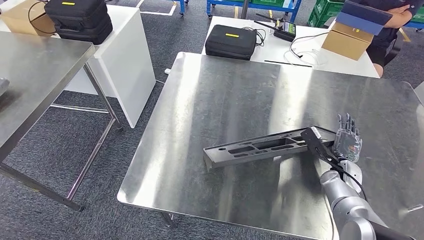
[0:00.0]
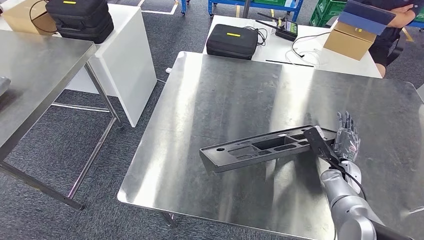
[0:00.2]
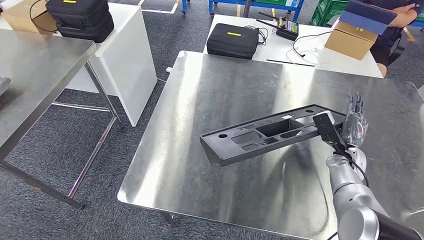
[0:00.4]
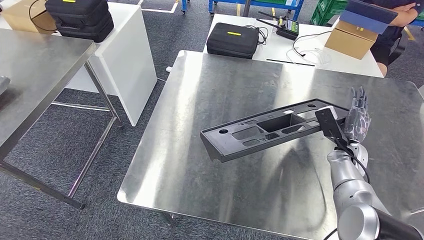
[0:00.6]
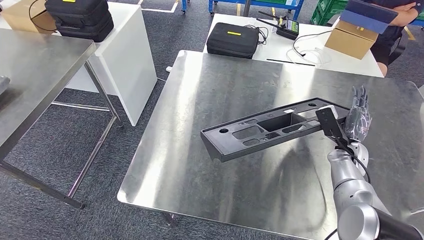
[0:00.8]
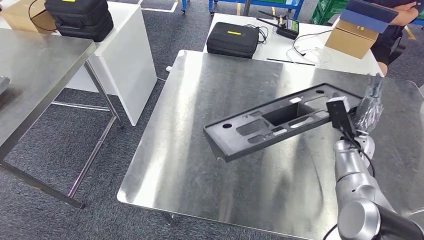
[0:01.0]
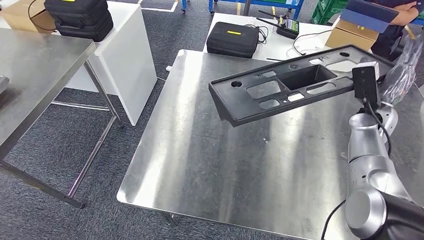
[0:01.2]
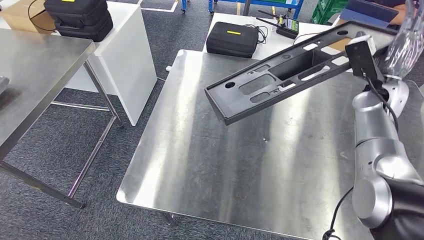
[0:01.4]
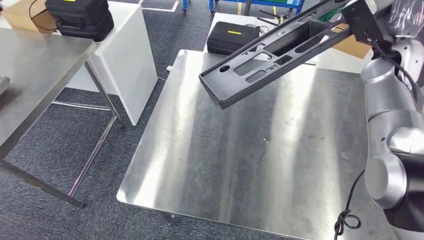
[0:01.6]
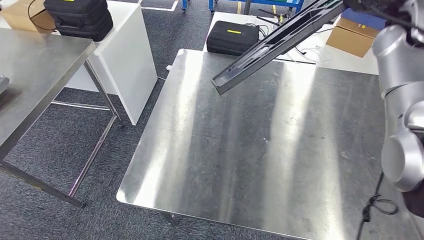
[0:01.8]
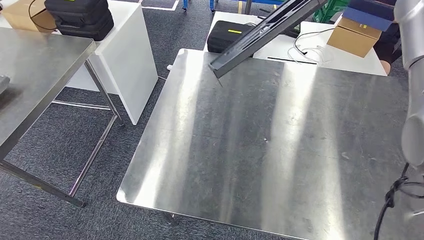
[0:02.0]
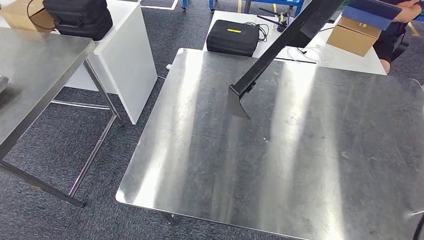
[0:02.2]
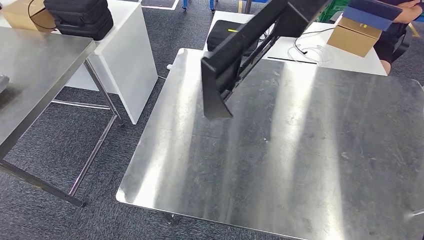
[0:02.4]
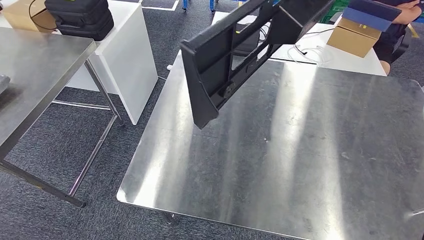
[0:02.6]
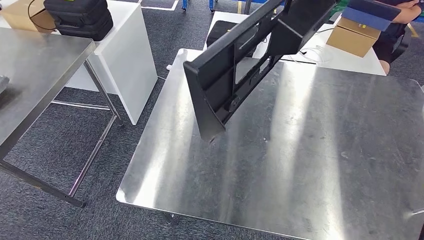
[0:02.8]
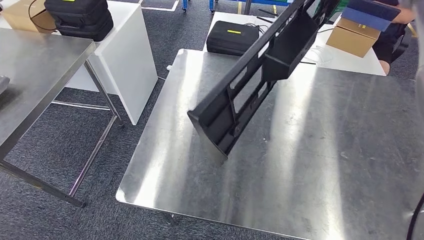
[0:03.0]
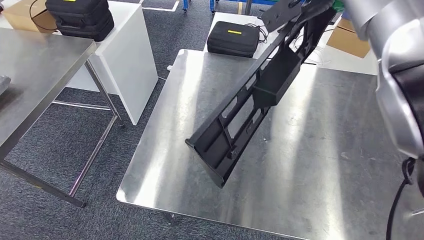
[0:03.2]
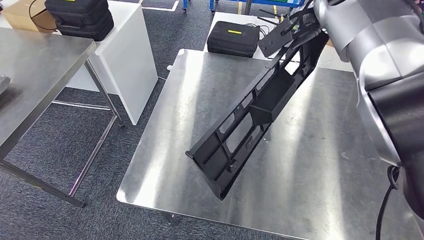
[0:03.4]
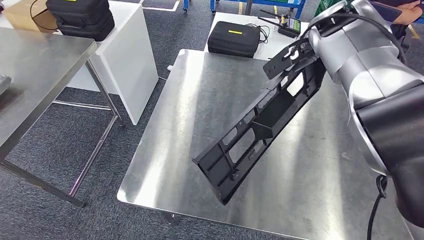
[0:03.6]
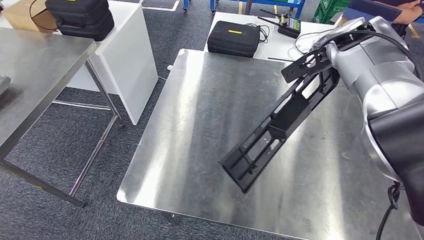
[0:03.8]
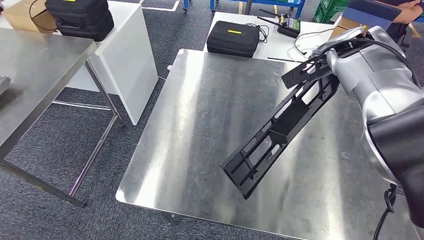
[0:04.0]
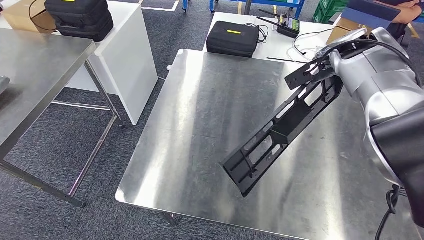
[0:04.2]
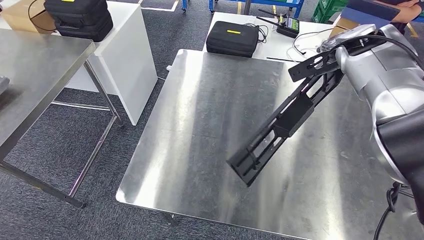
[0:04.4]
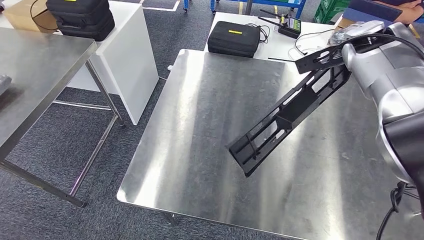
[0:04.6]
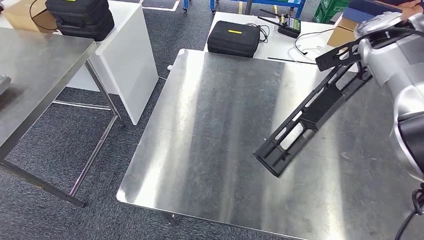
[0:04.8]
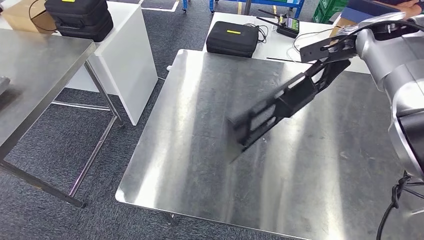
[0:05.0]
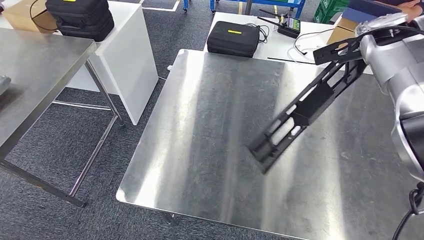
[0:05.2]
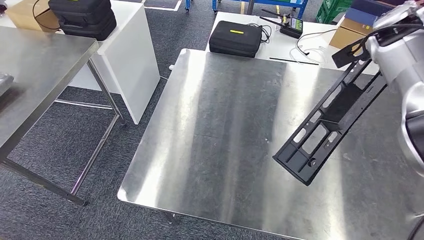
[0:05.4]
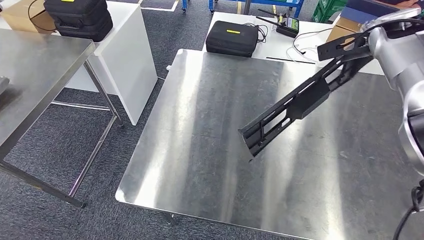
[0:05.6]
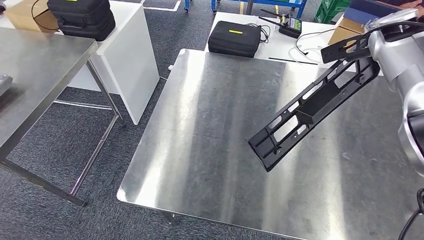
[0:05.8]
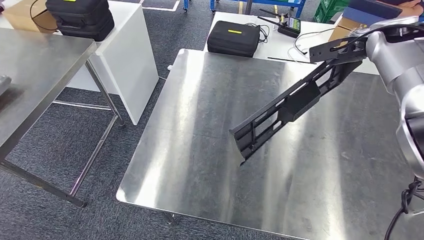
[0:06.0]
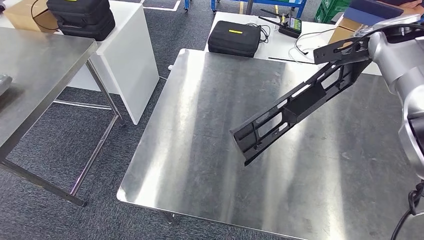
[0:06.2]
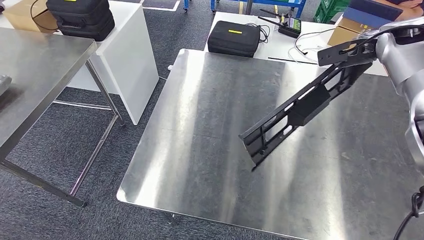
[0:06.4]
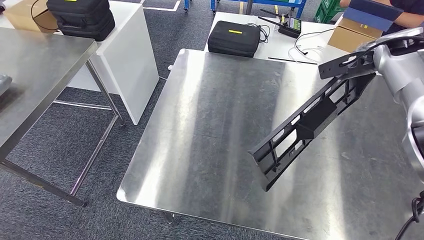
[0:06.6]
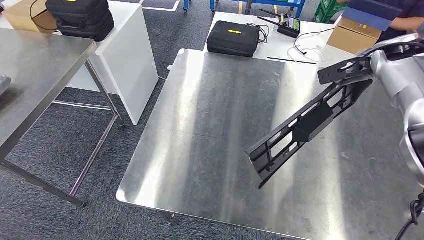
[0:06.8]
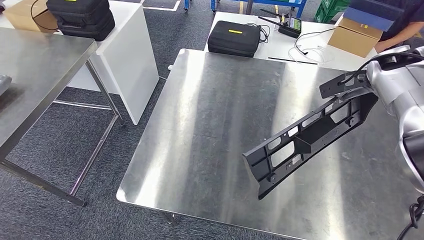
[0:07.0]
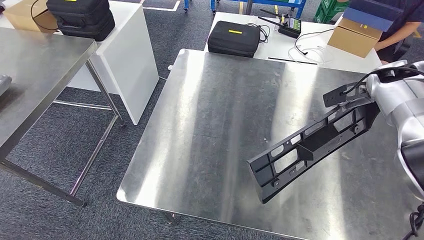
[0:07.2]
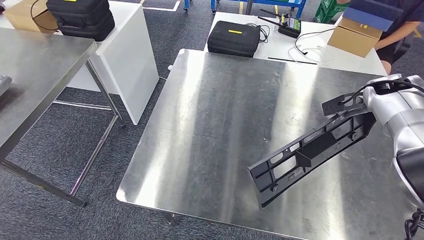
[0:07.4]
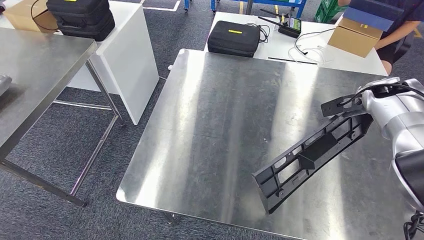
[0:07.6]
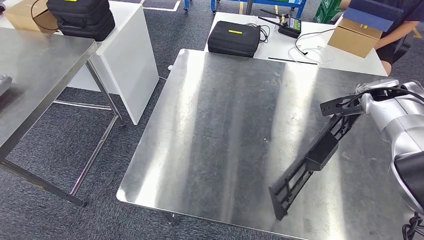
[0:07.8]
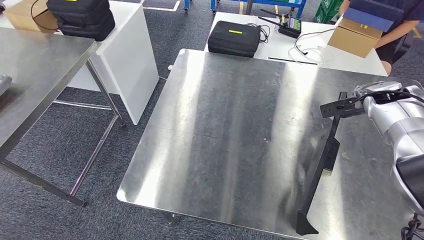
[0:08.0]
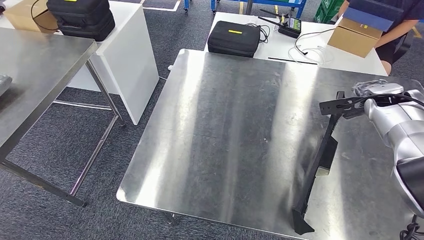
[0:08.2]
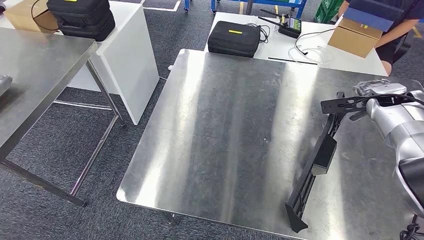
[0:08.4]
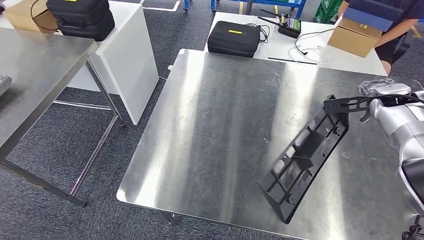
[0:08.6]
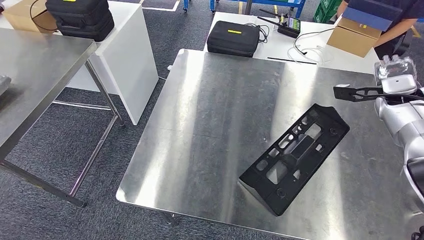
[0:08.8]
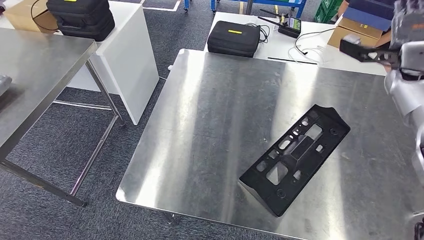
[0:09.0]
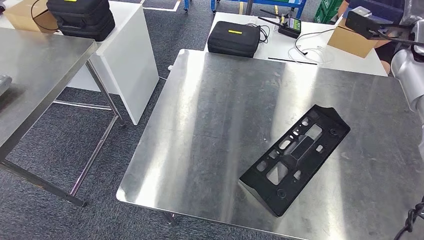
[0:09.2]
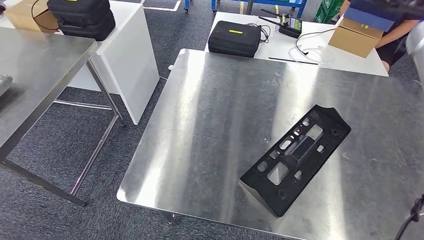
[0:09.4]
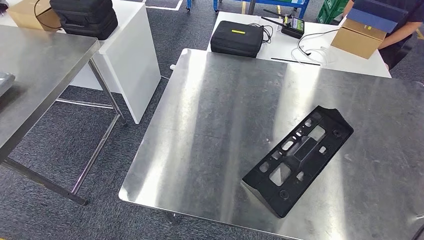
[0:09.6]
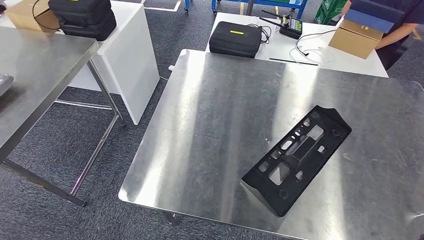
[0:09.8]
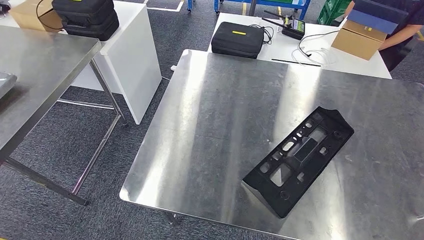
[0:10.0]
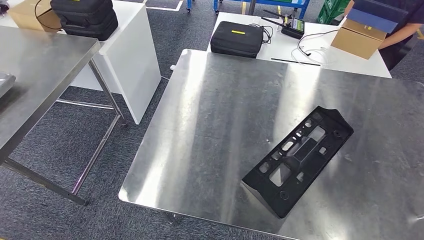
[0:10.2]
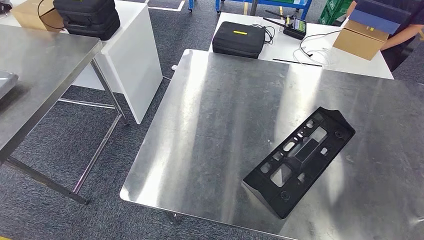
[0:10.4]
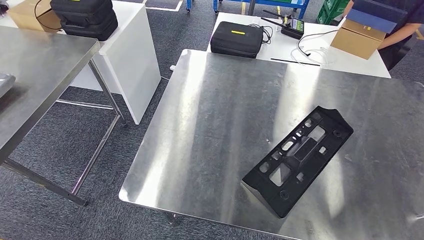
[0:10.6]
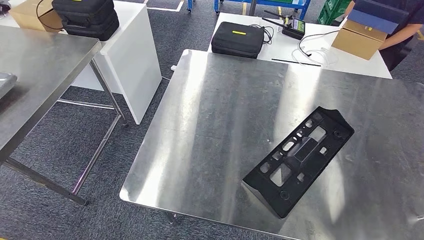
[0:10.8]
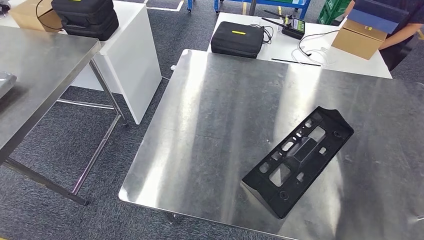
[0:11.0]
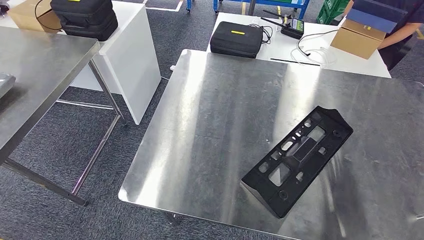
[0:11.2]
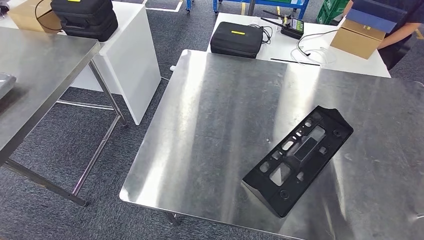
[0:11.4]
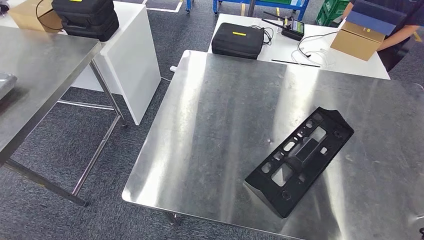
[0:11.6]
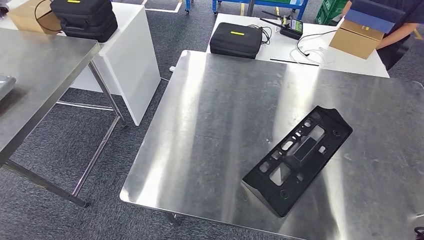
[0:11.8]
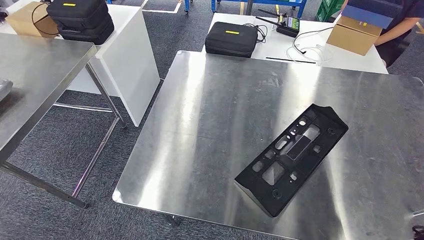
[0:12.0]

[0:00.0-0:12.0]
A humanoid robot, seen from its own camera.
Step, 0:00.0 to 0:09.6: Insert the large material into the corresponding slot on the workbench.
0:04.4 to 0:06.0: The right hand is displaced to the right by about 5 cm.
0:06.0 to 0:07.6: The right hand is displaced downward and to the right by about 15 cm.
0:07.6 to 0:09.0: The right hand goes approximately 5 cm upward.

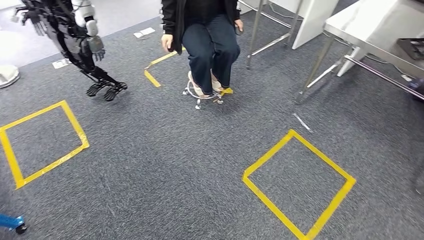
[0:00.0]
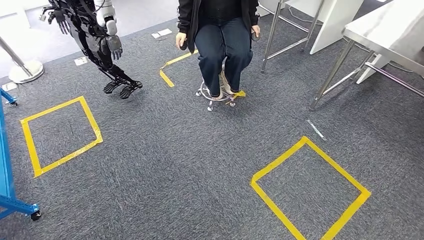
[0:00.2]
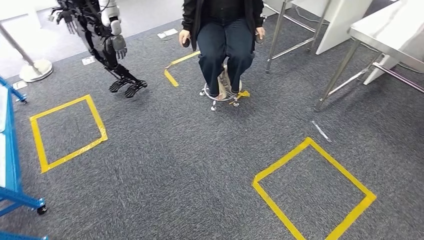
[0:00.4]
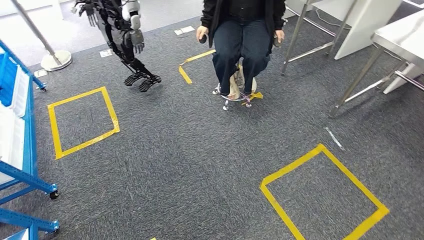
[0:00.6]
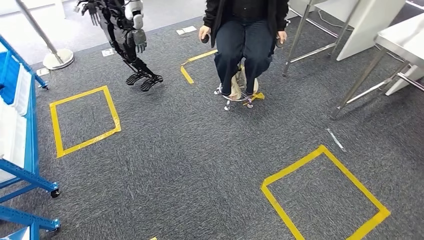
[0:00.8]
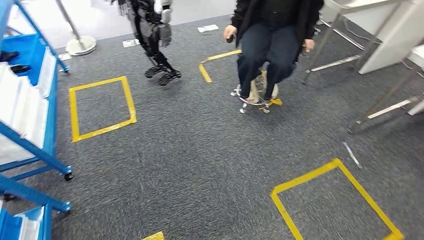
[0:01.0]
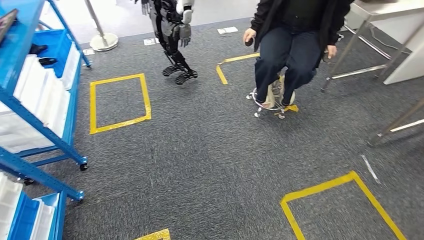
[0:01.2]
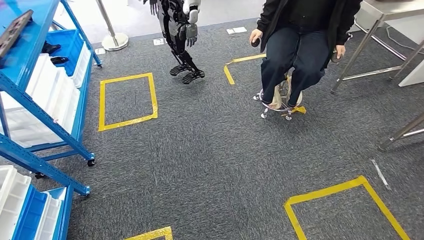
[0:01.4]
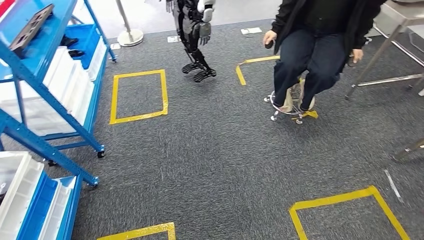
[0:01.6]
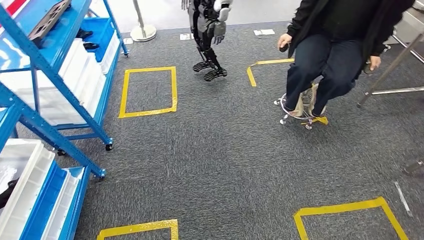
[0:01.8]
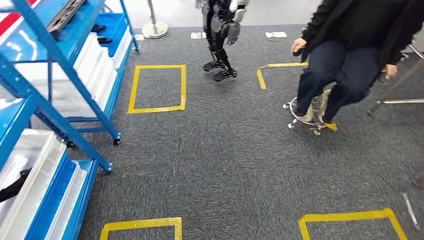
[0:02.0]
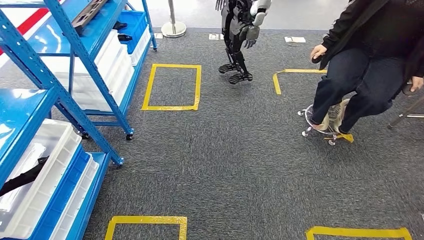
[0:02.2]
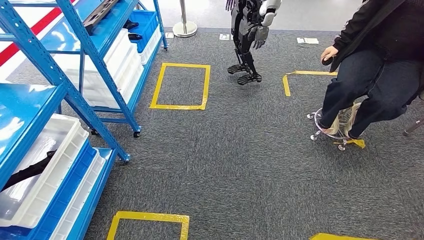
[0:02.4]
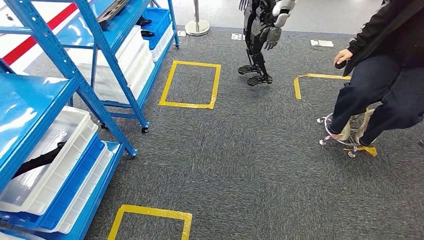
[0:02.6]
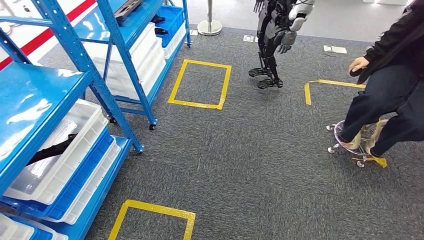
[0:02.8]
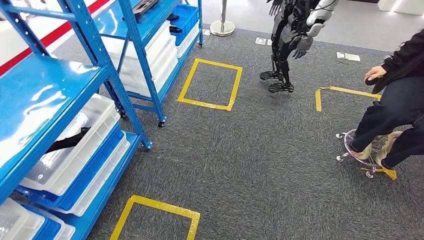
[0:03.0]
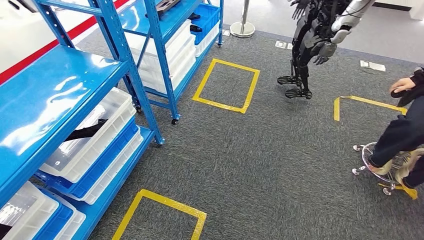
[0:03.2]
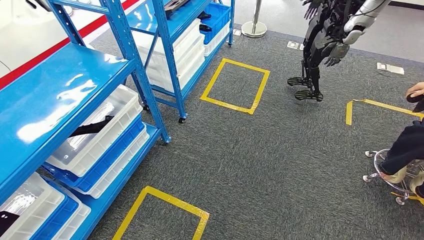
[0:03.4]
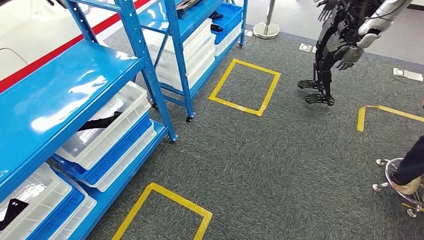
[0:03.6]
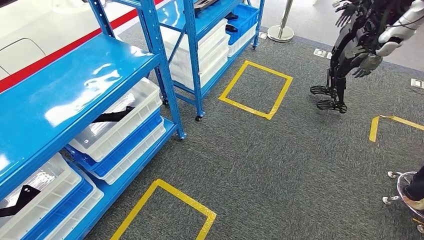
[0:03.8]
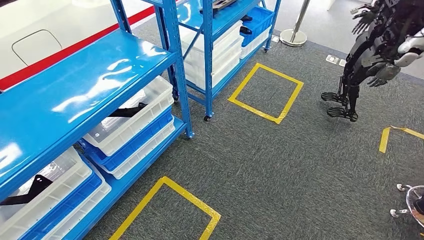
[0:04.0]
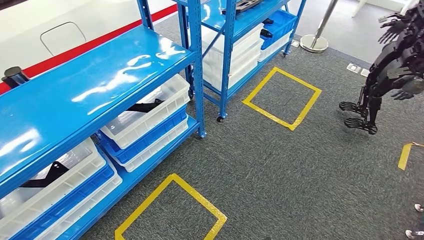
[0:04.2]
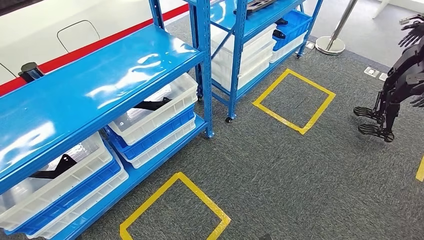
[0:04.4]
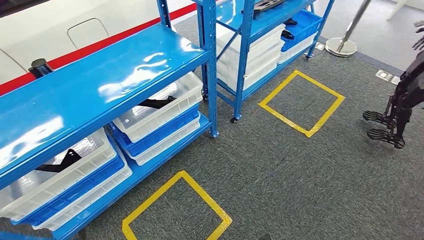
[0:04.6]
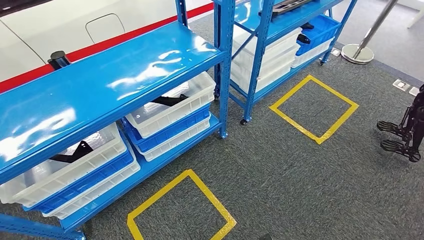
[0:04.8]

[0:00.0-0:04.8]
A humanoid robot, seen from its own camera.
Step, 0:00.0 to 0:04.8: Move to the initial position of the shelf.
